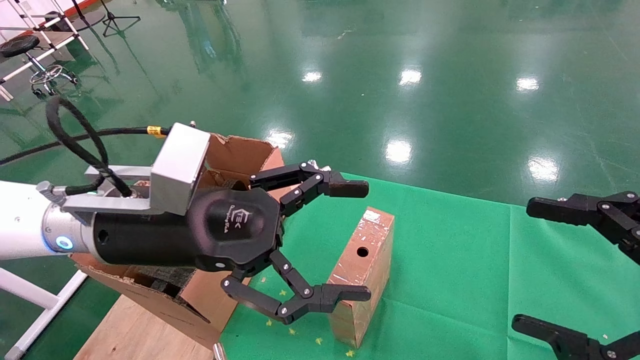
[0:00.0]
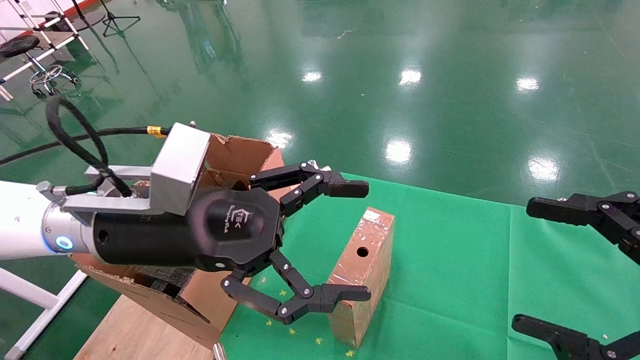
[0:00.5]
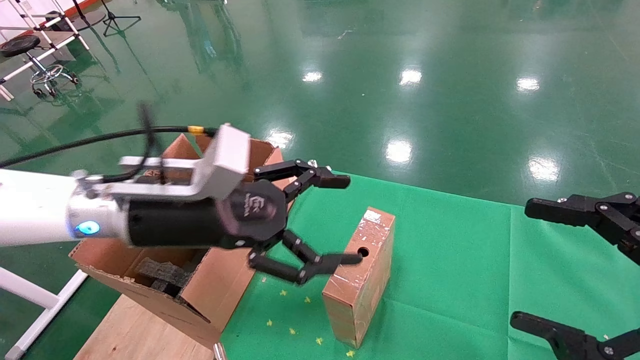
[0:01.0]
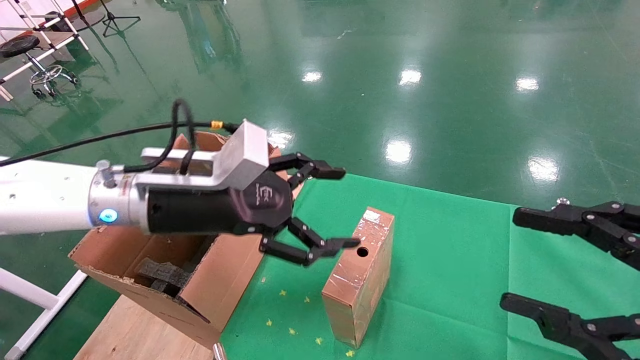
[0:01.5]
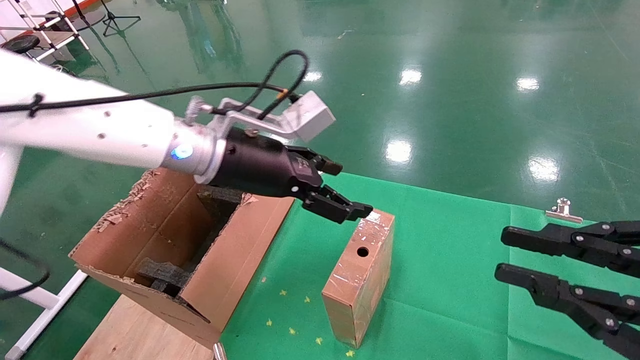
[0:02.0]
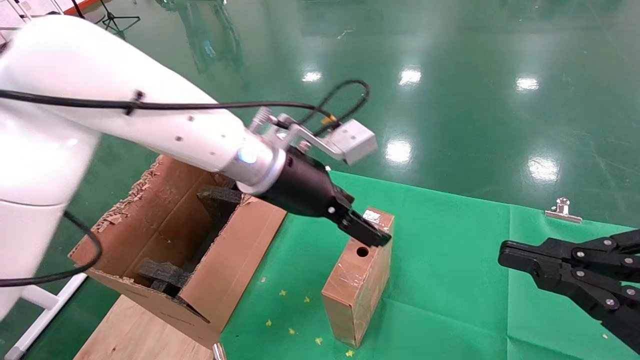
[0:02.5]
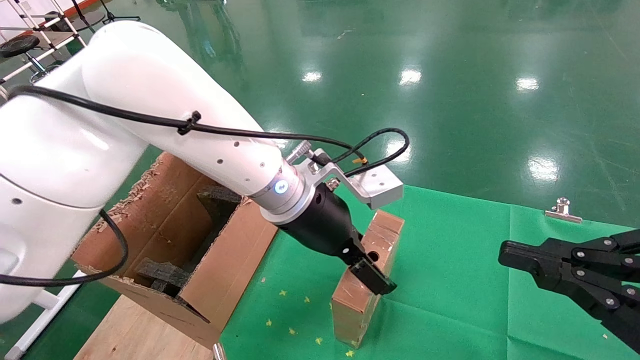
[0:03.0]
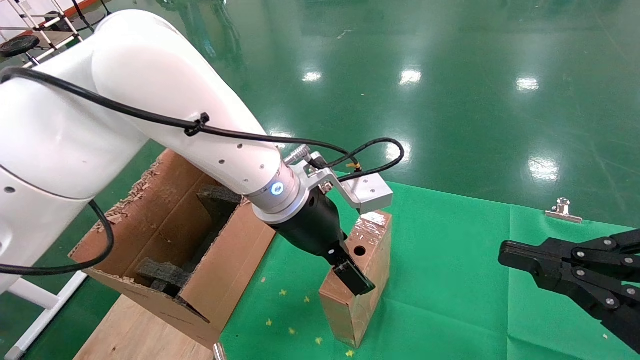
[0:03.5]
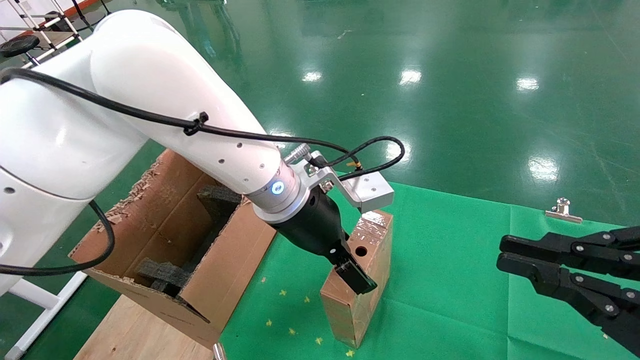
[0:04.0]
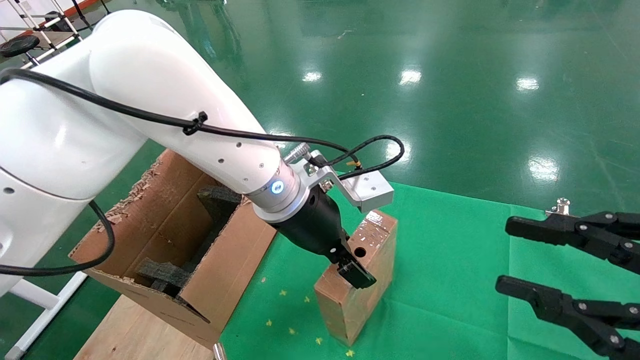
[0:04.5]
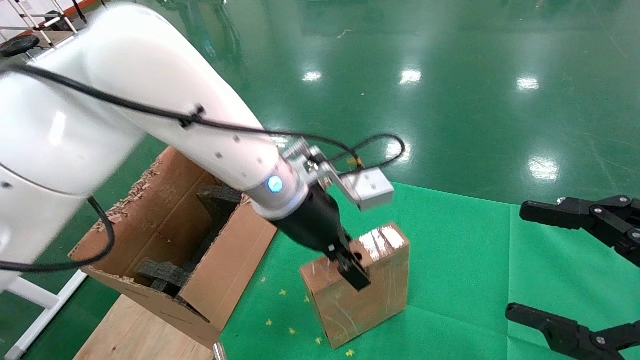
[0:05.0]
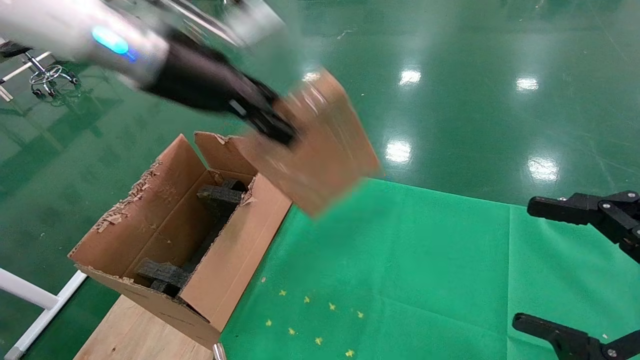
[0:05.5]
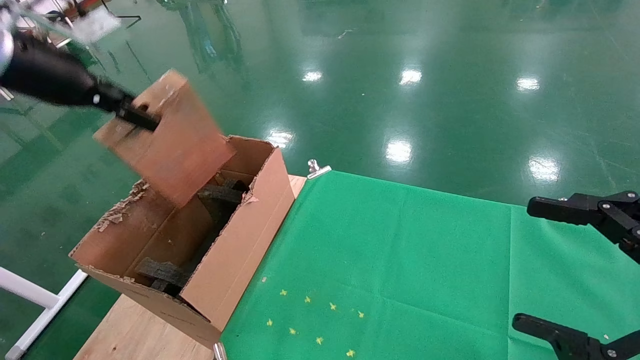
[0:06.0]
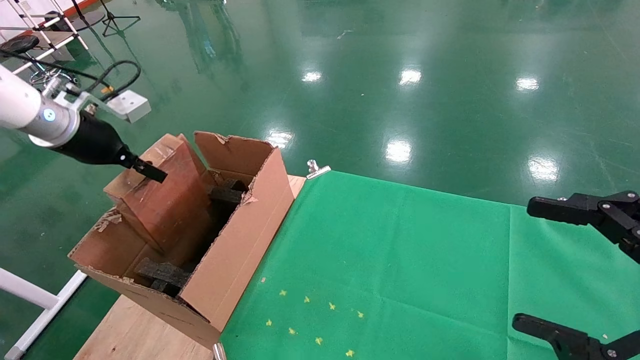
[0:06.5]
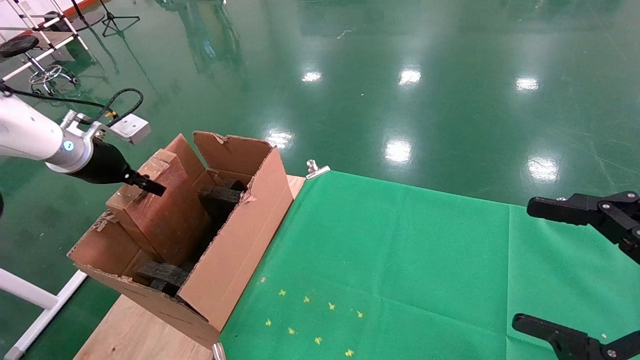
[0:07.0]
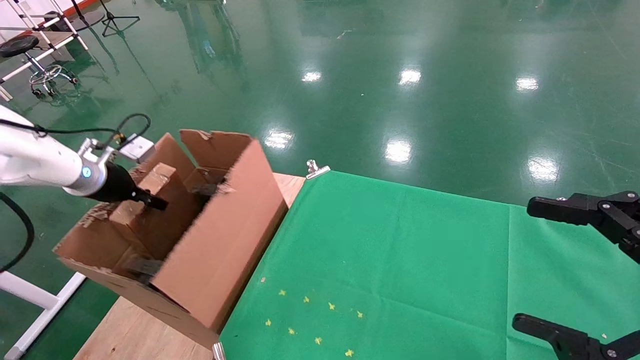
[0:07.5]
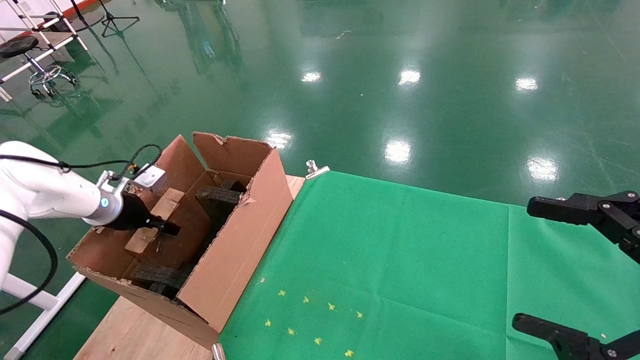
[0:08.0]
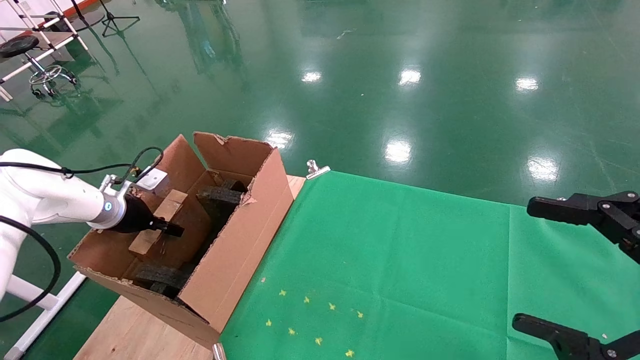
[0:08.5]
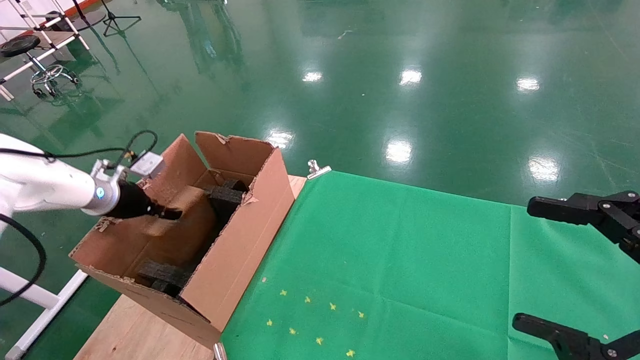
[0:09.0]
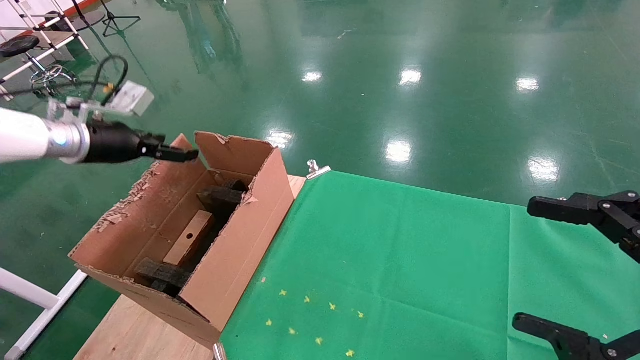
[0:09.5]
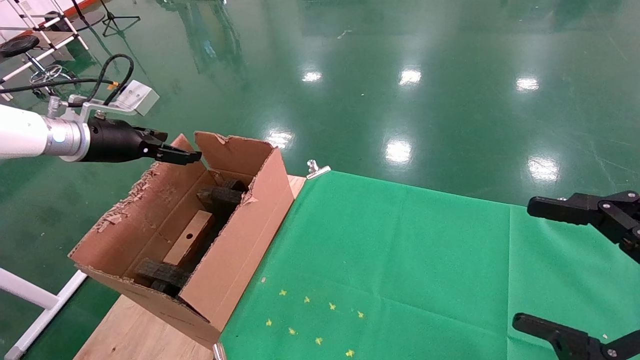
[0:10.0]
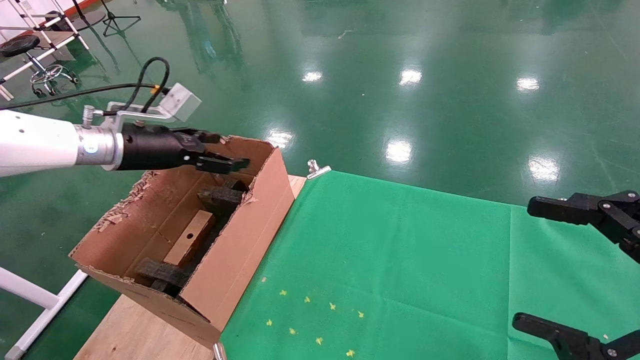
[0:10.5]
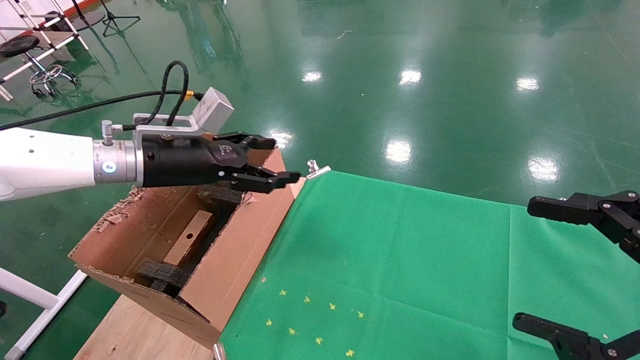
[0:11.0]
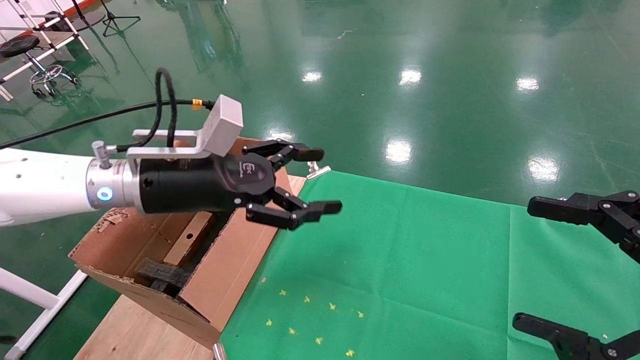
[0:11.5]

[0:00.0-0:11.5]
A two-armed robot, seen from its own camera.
Task of the whole recording: using a robotic arm to pick up a cardboard box and palace it the carton.
Step, 0:01.0 to 0:04.5: Pick up the mouse and the power cord paper box.
Step, 0:05.0 to 0:08.5: Place the mouse and the power cord paper box into the container.
0:00.0 to 0:02.0: The left gripper goes roughly 10 cm forward. The right gripper closes its fingers.
0:02.0 to 0:04.0: The left gripper travels to the right by roughly 10 cm.
0:04.0 to 0:06.0: The right gripper opens up; the left gripper heads to the left and upward, covering roughly 35 cm, and closes up.
0:06.0 to 0:07.5: The left gripper goes approximately 20 cm downward, to the left and forward.
0:07.5 to 0:09.5: The left gripper goes about 5 cm upward, and opens up.
0:09.5 to 0:11.5: The left gripper goes some 20 cm to the right.

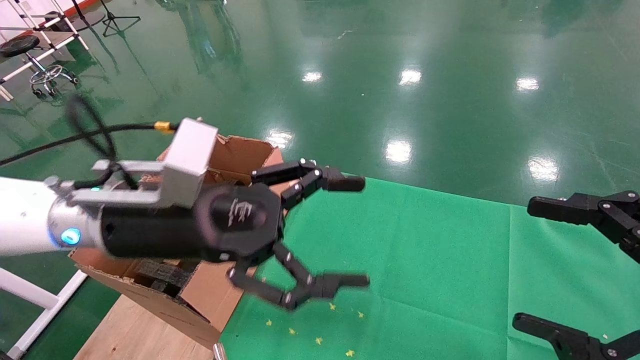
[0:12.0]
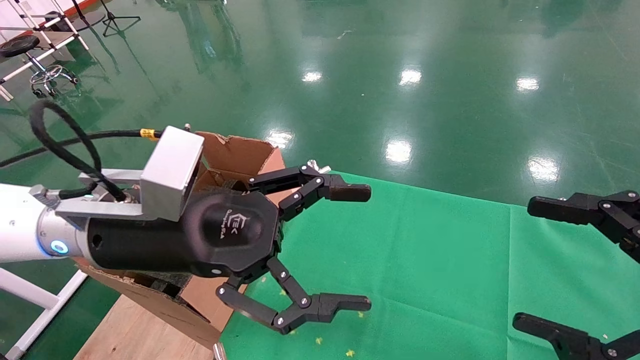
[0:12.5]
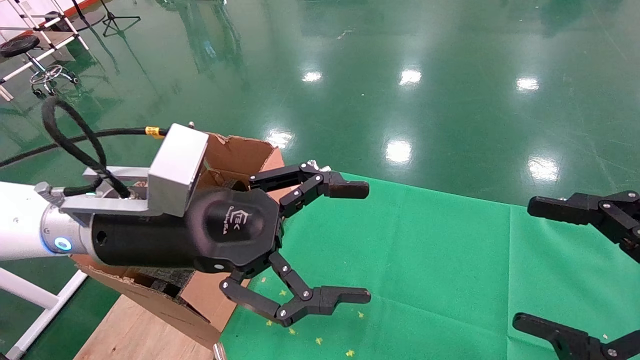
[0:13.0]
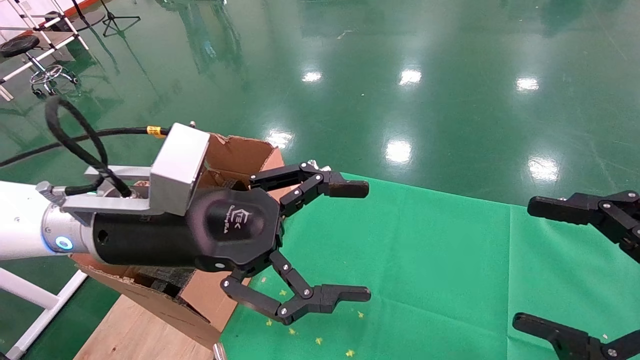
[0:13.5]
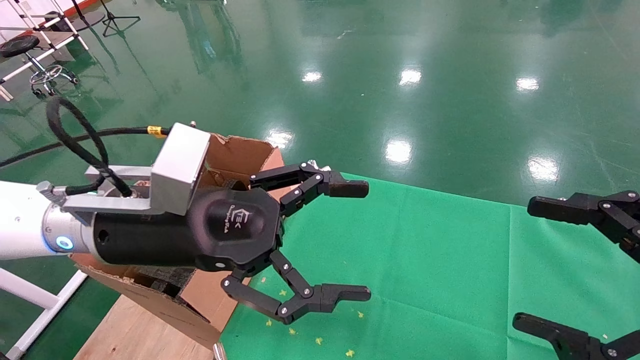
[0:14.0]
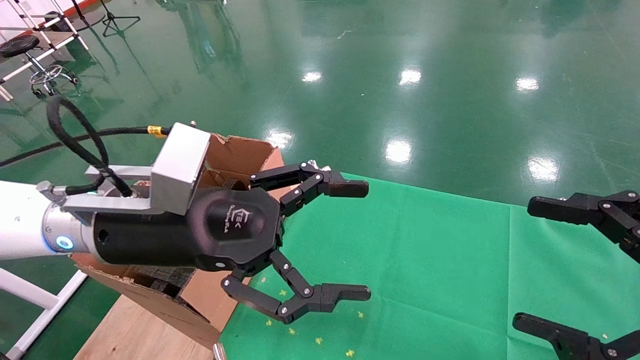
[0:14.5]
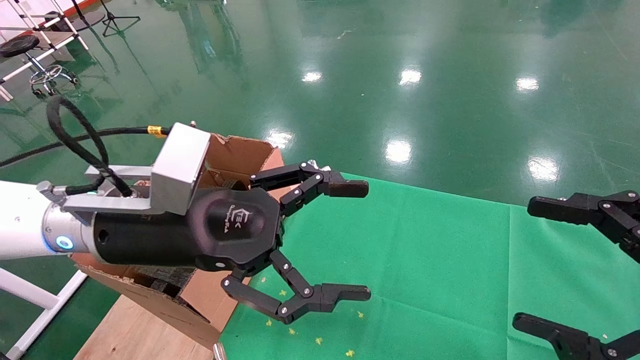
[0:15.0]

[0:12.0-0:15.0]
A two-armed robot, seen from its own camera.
Task of the whole recording: using a robotic arm to pick up a cardboard box and palace it the carton.
0:12.0 to 0:13.5: There are only small adjustments of the grippers.
0:13.5 to 0:15.0: Both grippers stay about where they are.
